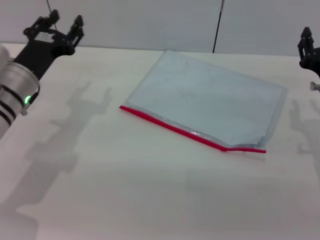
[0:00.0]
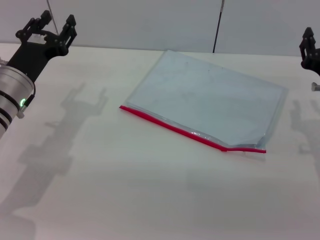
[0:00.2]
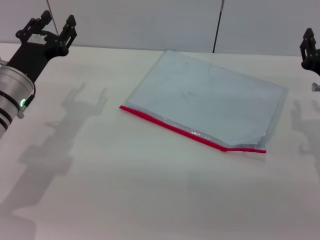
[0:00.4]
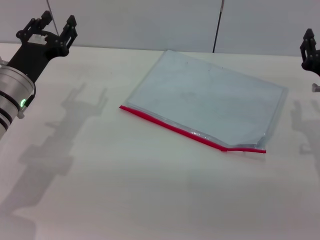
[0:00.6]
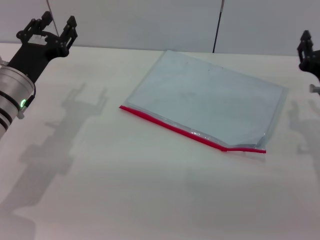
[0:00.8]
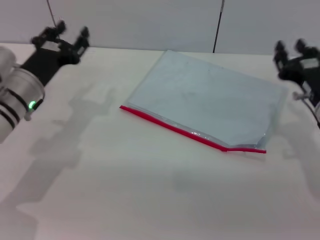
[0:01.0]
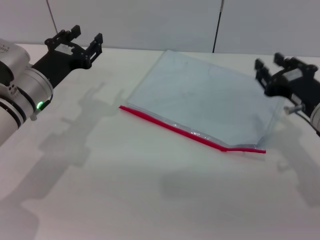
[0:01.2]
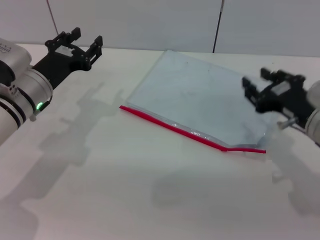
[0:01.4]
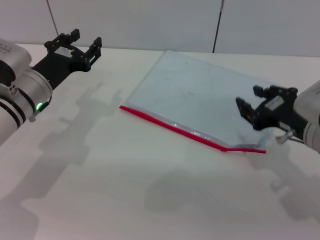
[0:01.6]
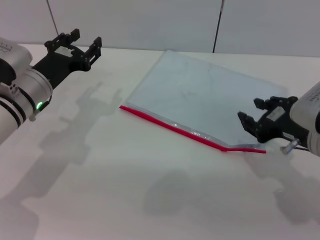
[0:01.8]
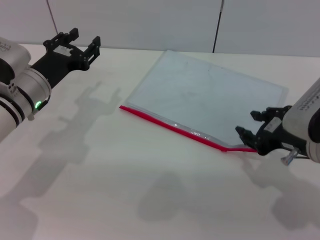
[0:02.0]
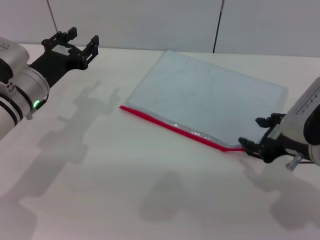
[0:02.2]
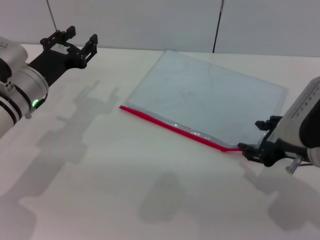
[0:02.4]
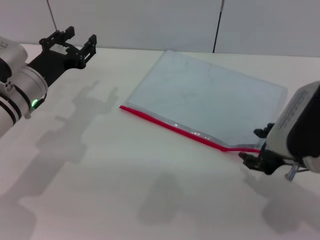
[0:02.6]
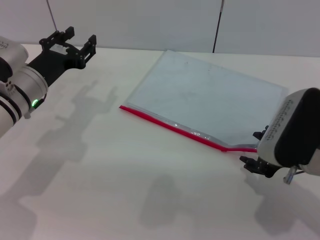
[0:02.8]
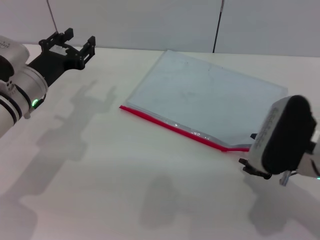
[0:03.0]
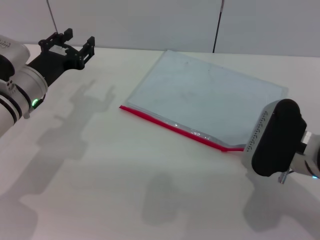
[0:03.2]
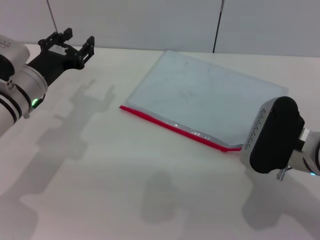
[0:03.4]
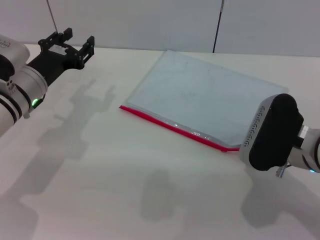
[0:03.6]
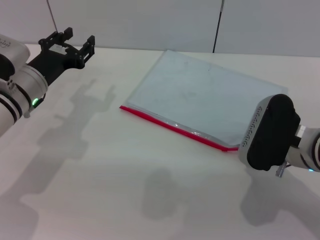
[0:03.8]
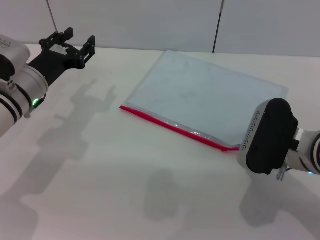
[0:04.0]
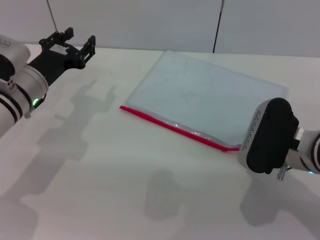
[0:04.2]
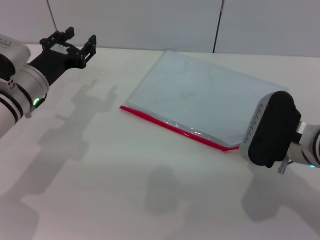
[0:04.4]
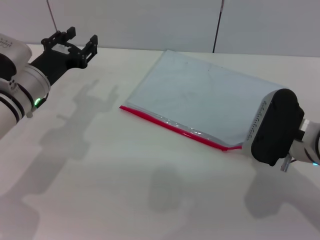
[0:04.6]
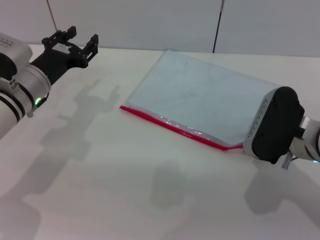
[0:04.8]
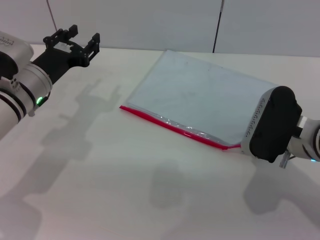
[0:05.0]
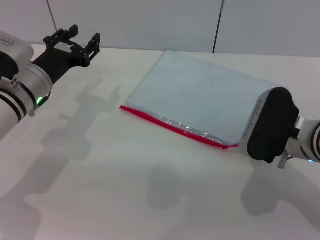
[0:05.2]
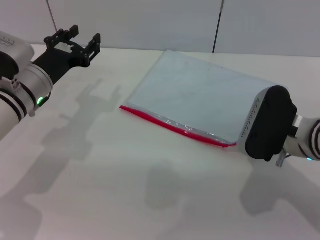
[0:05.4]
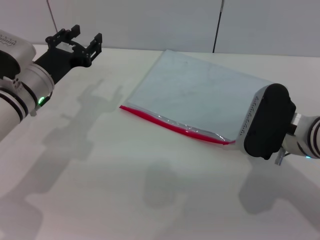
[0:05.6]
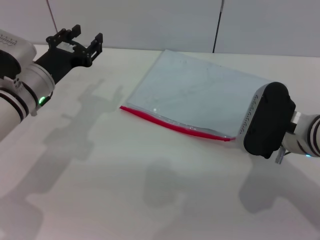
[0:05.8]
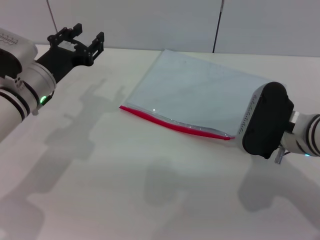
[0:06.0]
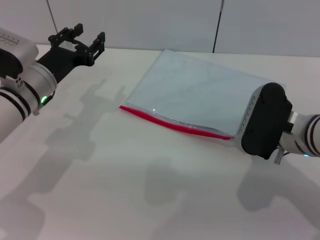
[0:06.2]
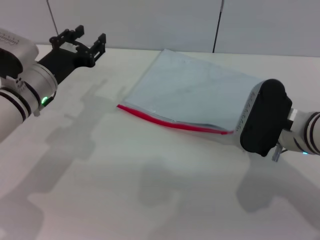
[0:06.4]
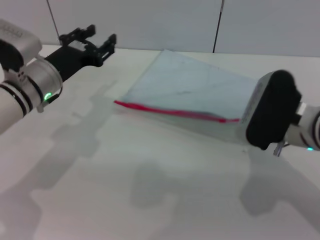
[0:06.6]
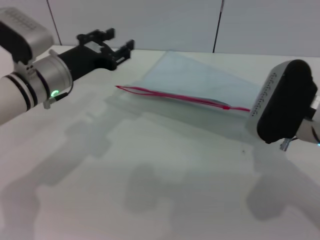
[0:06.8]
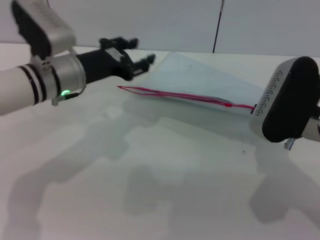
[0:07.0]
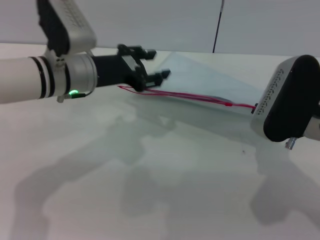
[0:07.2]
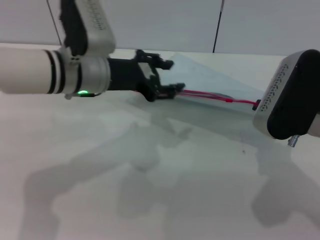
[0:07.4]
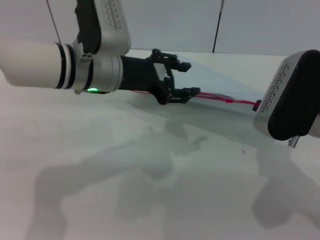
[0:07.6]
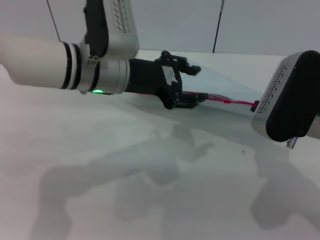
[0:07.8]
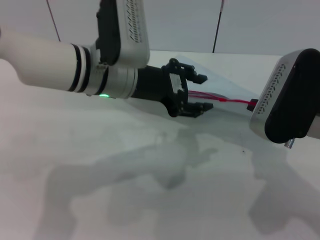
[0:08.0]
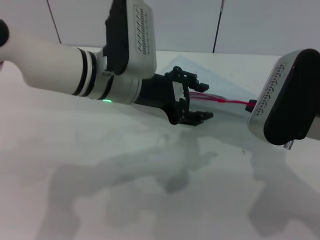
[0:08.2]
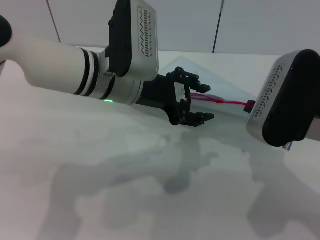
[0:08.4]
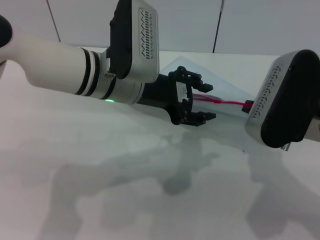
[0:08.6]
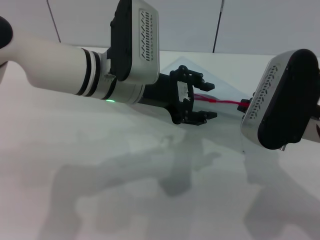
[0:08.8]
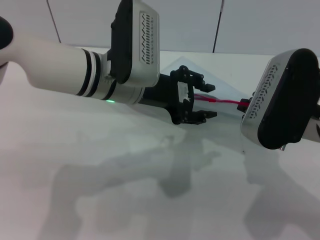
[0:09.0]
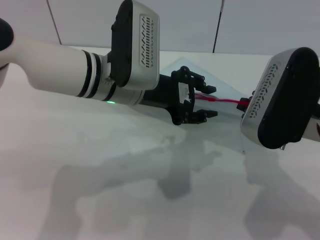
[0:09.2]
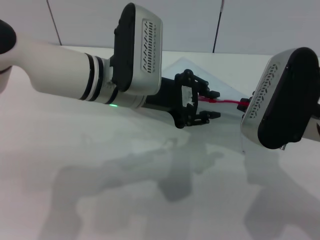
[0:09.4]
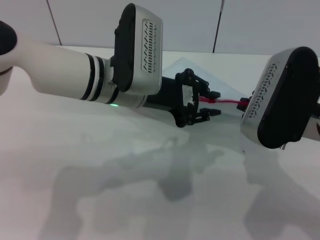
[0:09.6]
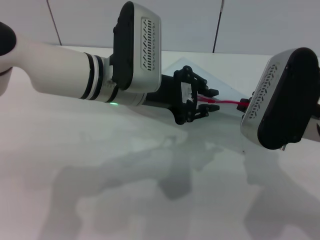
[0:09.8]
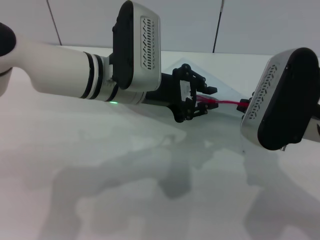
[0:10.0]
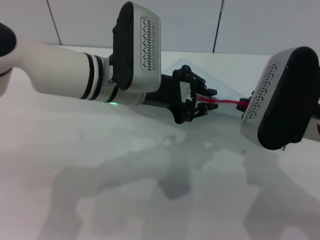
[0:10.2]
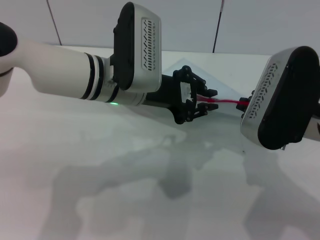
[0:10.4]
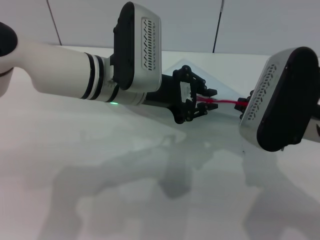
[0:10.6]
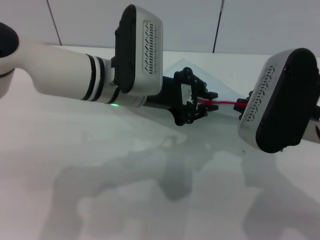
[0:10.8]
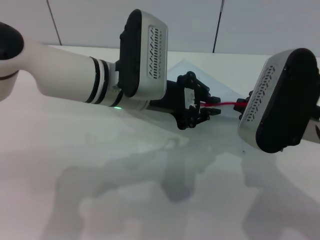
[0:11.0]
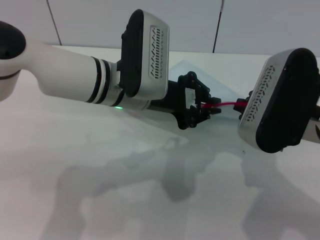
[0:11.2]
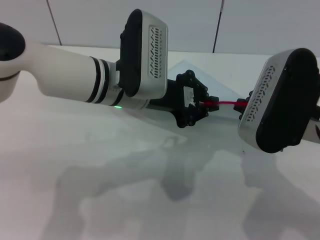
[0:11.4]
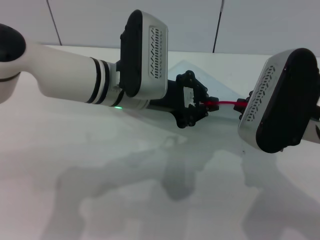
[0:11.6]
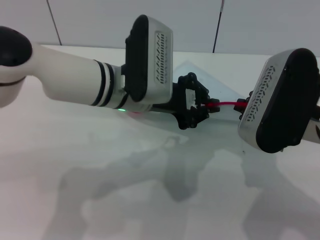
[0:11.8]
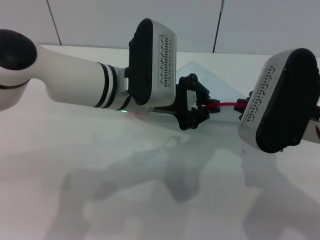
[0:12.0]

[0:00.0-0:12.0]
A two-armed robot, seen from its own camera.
Step, 0:00.0 to 0:06.8: Pick up the transparent plastic bag with the right gripper.
0:00.0 to 0:01.6: The right gripper moves approximately 5 cm.
0:03.0 to 0:04.4: The grippers move only a little.
0:04.4 to 0:06.0: The right gripper closes its fingers.
0:06.0 to 0:07.6: The left gripper is displaced to the right and upward by approximately 15 cm. Meanwhile the right gripper shifts some 5 cm upward.
0:09.0 to 0:10.4: The left gripper closes.
0:10.4 to 0:12.0: The grippers move only a little.

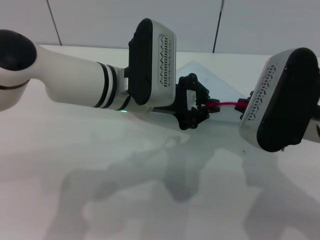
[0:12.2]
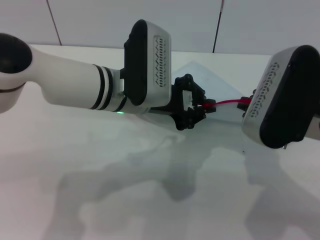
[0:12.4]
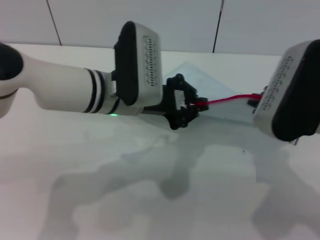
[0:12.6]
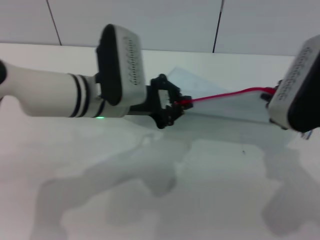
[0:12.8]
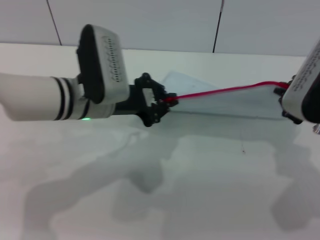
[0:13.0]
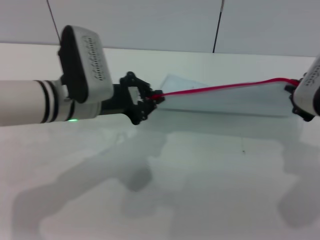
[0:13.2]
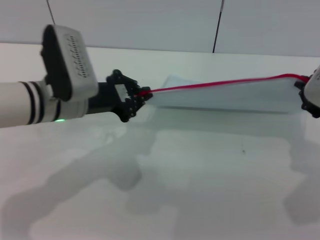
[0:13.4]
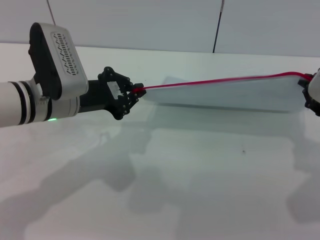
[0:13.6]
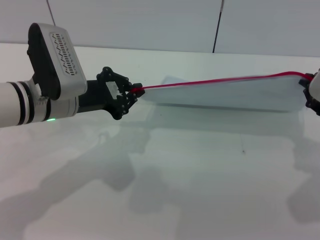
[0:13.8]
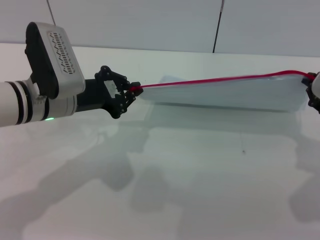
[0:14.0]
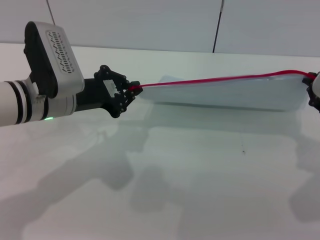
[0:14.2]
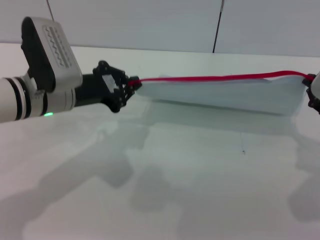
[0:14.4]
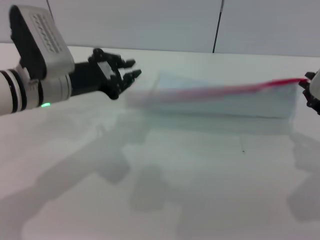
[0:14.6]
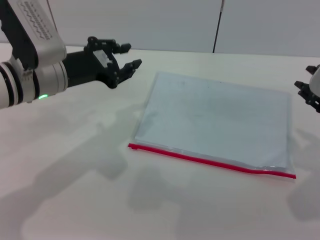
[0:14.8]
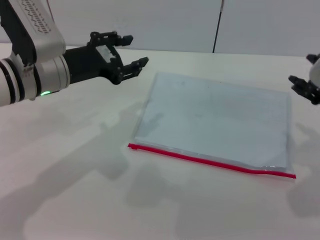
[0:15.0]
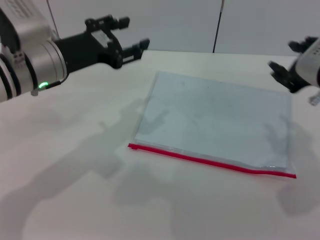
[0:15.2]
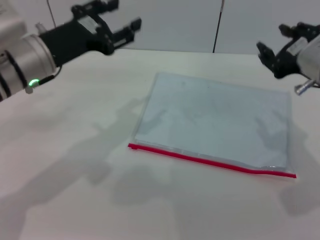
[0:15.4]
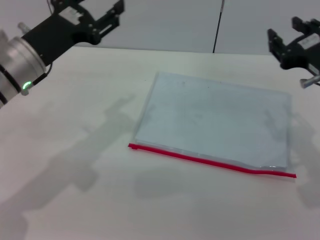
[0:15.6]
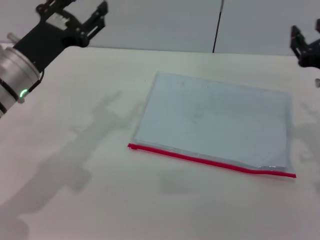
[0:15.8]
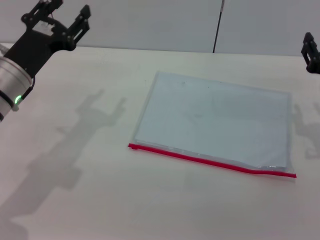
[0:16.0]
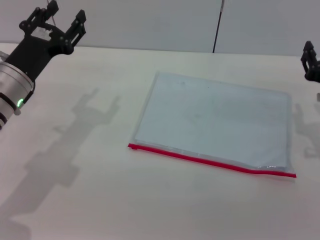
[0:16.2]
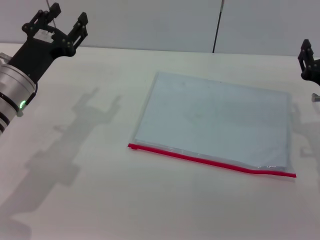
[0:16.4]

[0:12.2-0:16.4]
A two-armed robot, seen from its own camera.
Step, 0:12.2 to 0:14.6: Pulling up the zipper on the transparent plastic bag with the left gripper to close it.
Step, 0:14.8 to 0:15.4: Place the transparent plastic bag.
0:12.2 to 0:13.6: The right gripper heads to the right, covering roughly 5 cm. Meanwhile the left gripper travels to the left by about 10 cm.
0:13.6 to 0:15.0: The left gripper opens up.
0:15.0 to 0:16.4: The left gripper shifts about 5 cm downward, and opens its fingers; the right gripper goes some 15 cm downward, and opens its fingers.

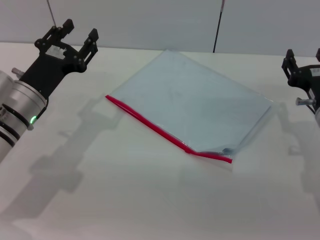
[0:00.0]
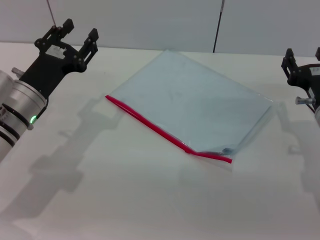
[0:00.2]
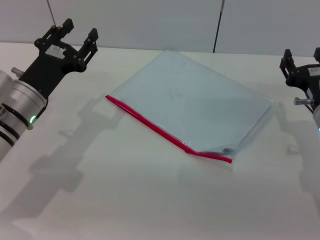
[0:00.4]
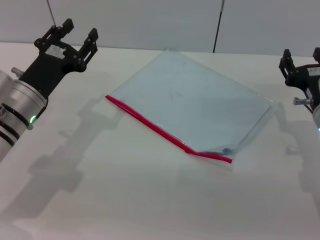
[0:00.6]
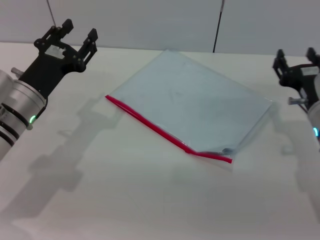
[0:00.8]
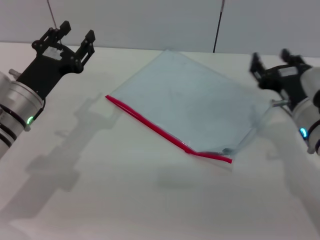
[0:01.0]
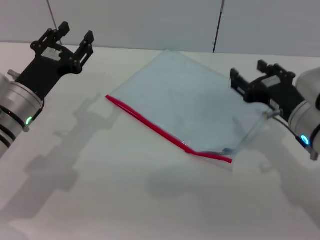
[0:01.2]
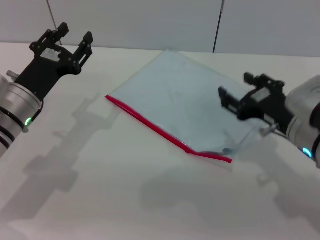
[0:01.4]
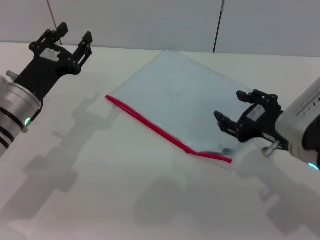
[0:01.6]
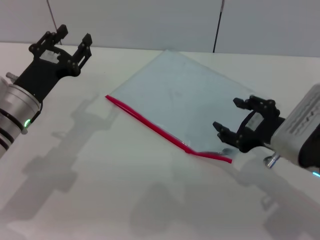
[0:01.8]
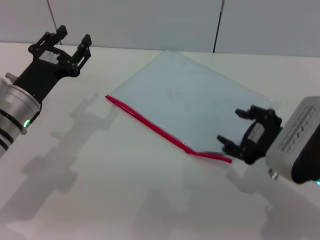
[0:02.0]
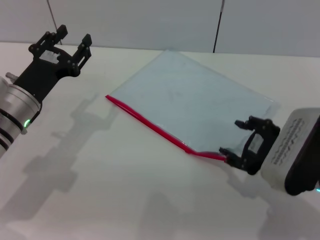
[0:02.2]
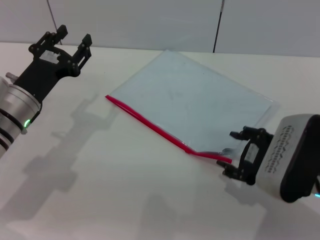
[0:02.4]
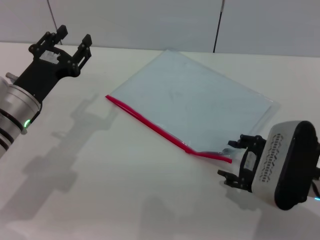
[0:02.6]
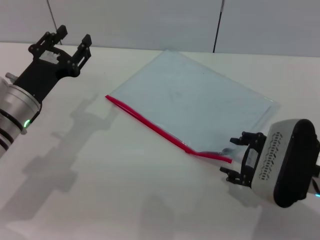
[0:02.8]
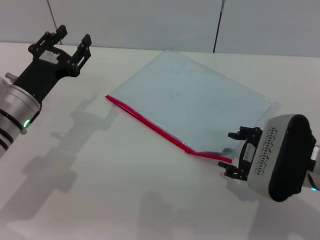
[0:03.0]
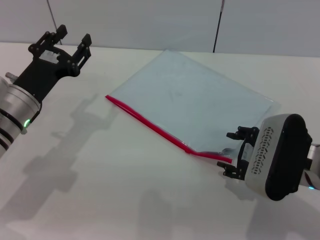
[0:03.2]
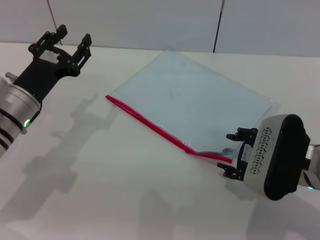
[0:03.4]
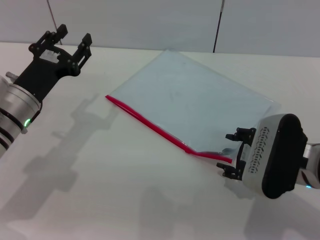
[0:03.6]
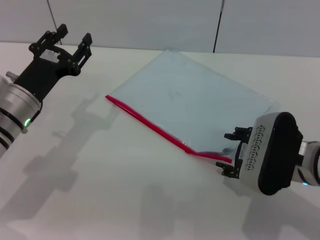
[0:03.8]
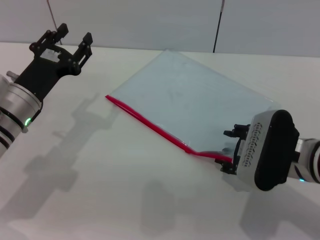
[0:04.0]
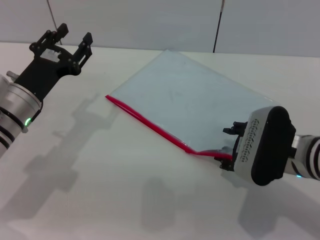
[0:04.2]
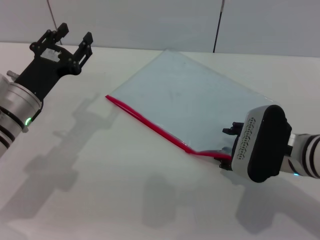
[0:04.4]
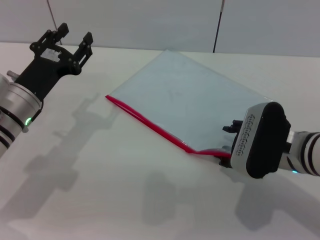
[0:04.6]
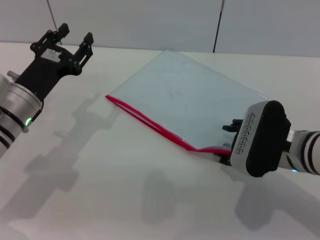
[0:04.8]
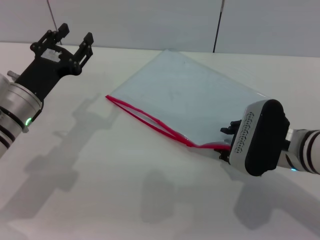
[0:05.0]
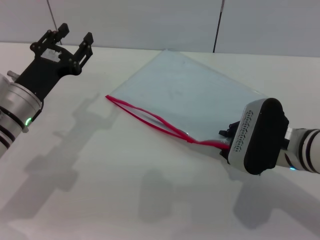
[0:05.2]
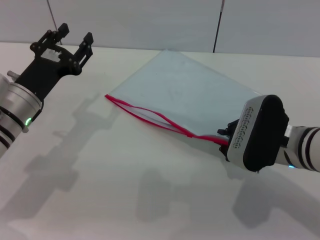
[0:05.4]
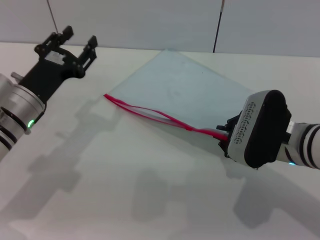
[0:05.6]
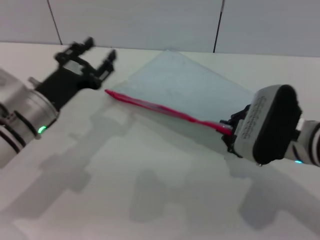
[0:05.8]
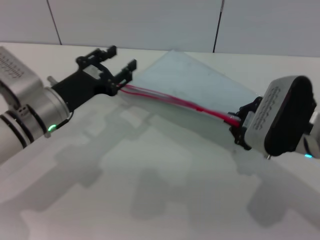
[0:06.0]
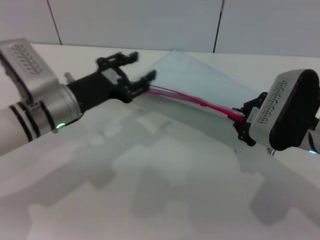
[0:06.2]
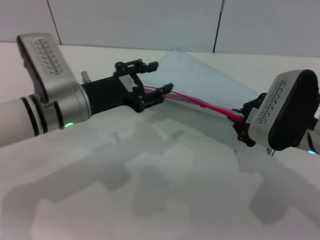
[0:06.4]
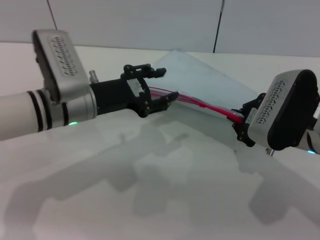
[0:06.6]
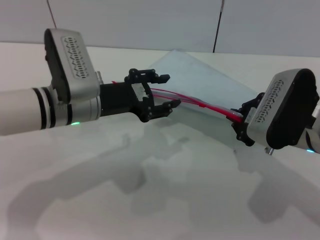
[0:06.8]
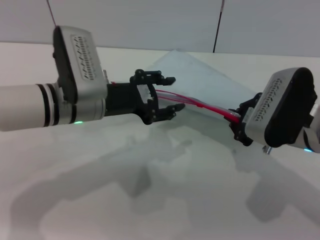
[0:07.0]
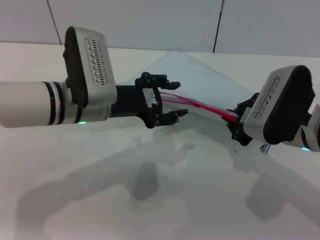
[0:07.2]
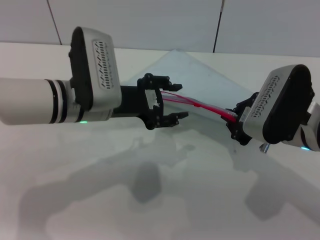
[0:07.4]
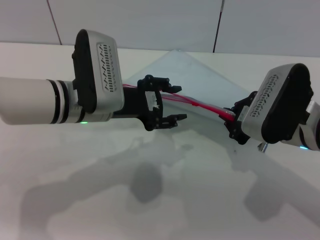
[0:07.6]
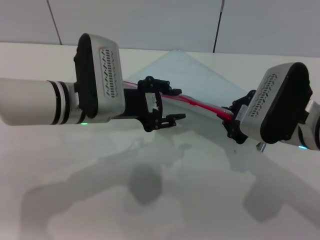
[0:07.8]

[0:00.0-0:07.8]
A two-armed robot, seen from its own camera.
Step, 0:00.0 to 0:06.4: Pick up the transparent plastic bag with the right gripper.
0:00.0 to 0:01.6: The right gripper changes place by approximately 5 cm.
0:03.2 to 0:04.6: The grippers stay close to where they were, moving slightly.
0:04.6 to 0:06.2: The right gripper closes its fingers.
0:06.2 to 0:07.8: The left gripper goes roughly 5 cm to the right.
